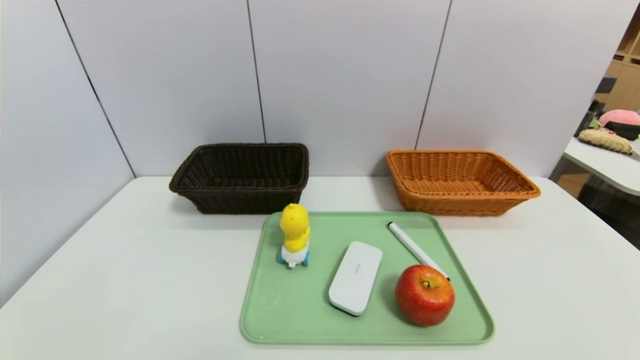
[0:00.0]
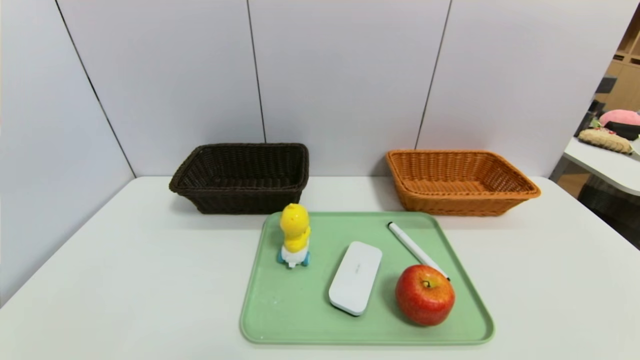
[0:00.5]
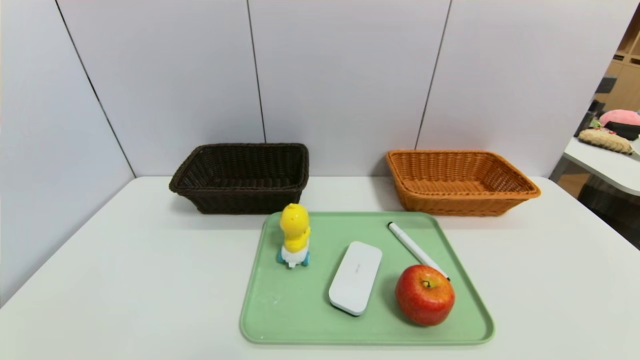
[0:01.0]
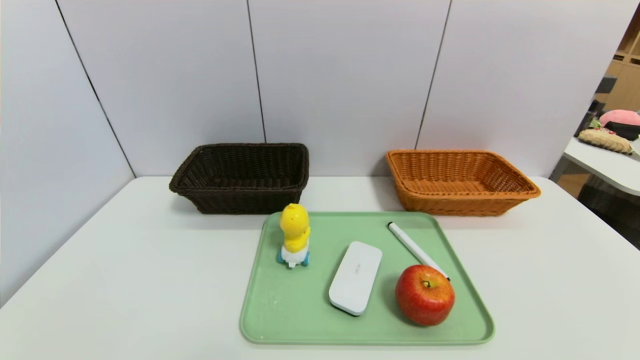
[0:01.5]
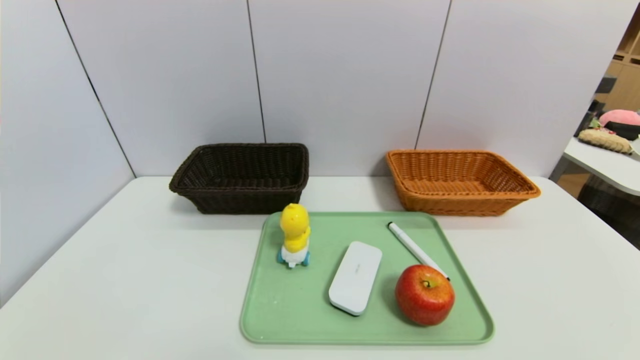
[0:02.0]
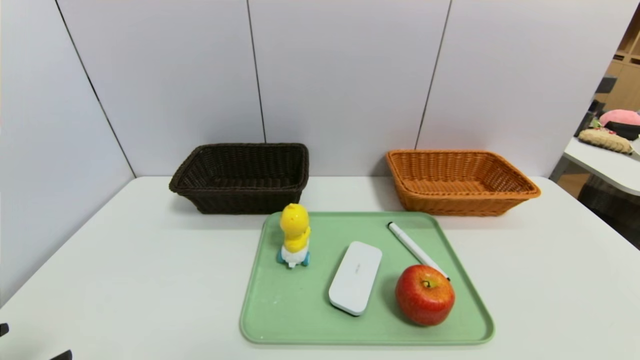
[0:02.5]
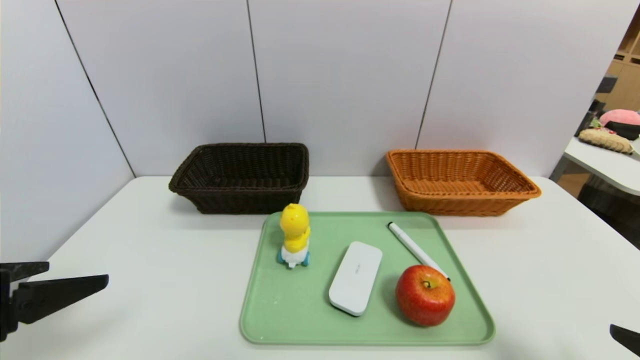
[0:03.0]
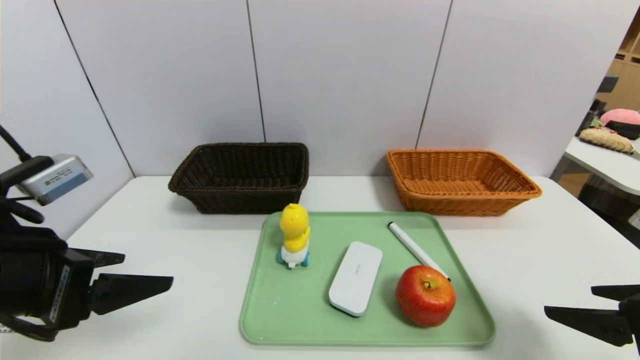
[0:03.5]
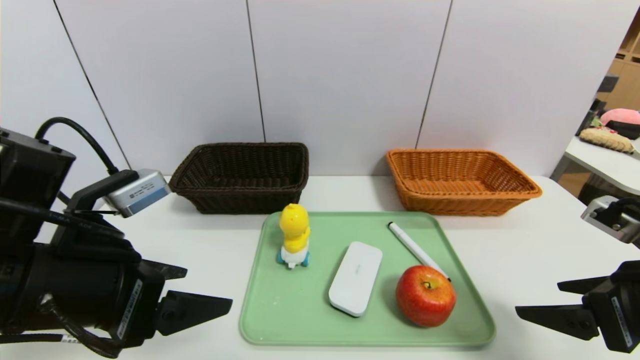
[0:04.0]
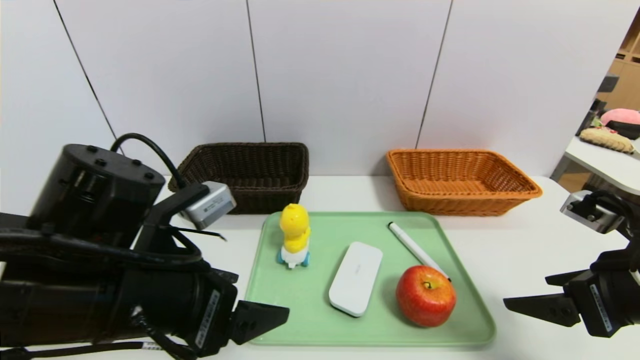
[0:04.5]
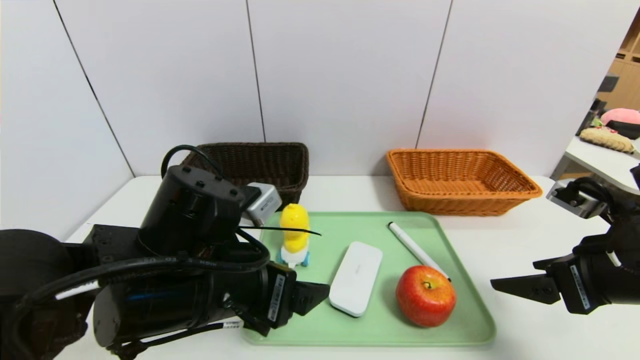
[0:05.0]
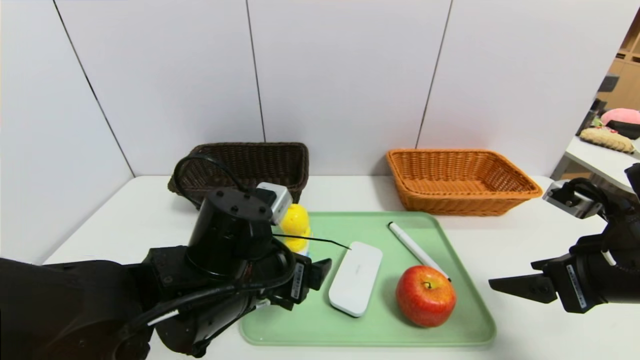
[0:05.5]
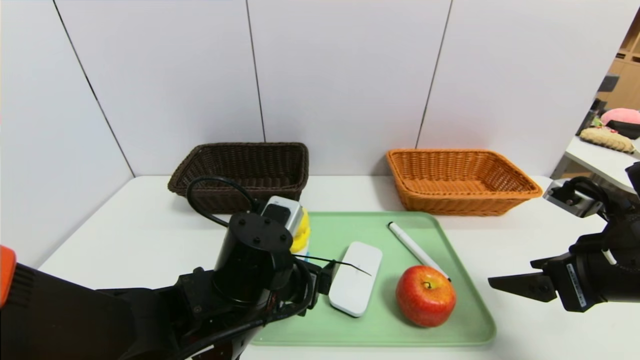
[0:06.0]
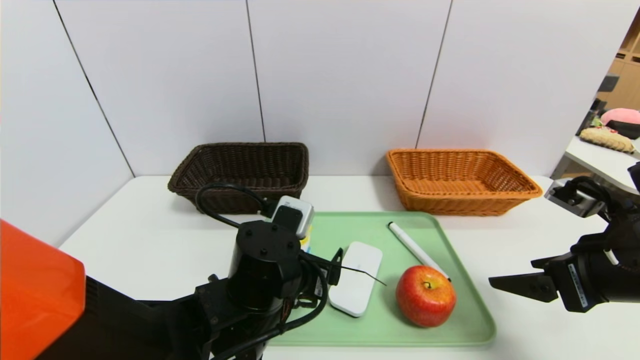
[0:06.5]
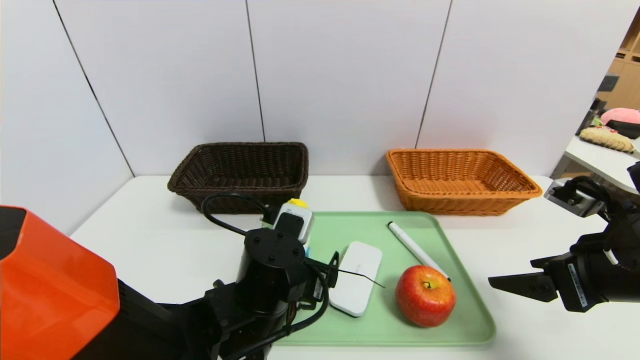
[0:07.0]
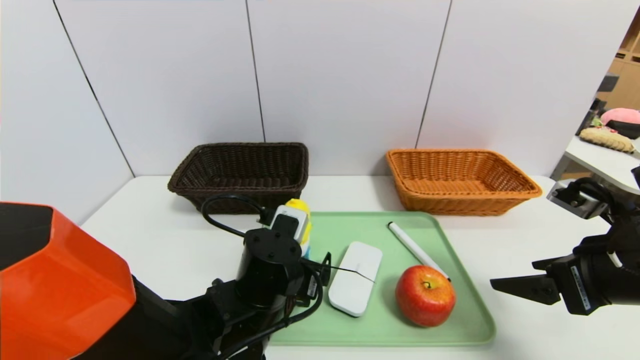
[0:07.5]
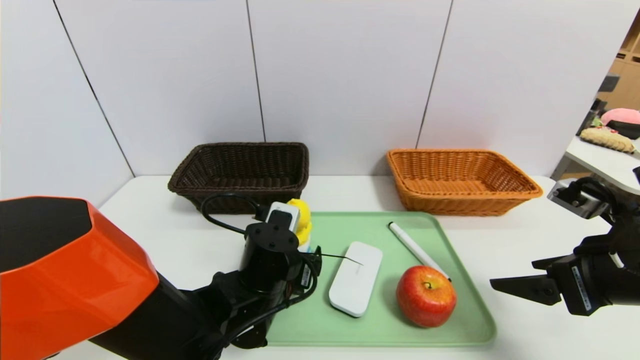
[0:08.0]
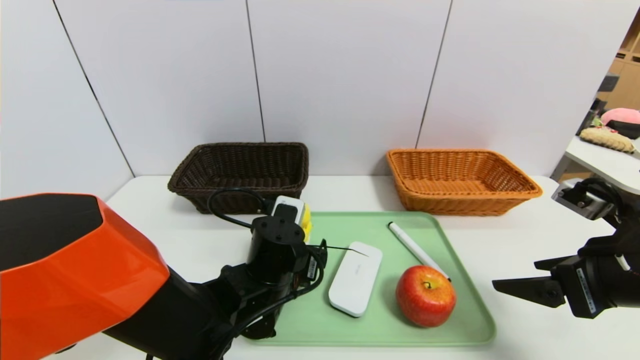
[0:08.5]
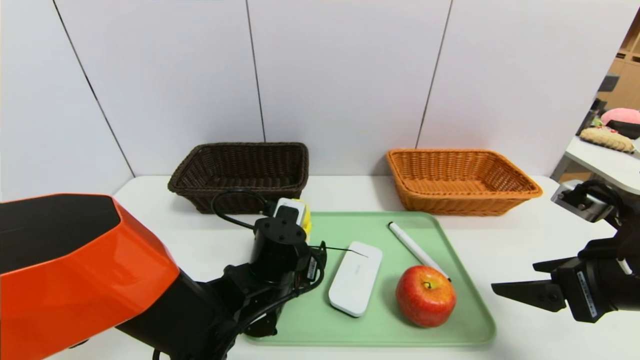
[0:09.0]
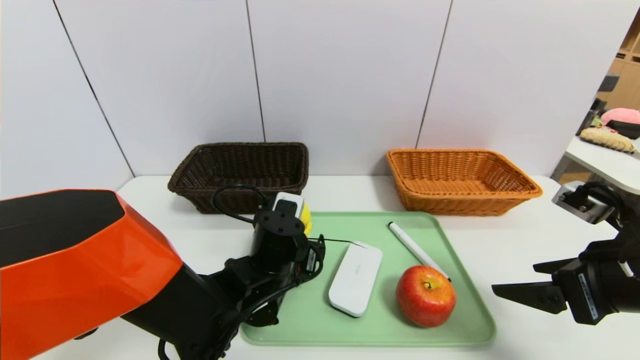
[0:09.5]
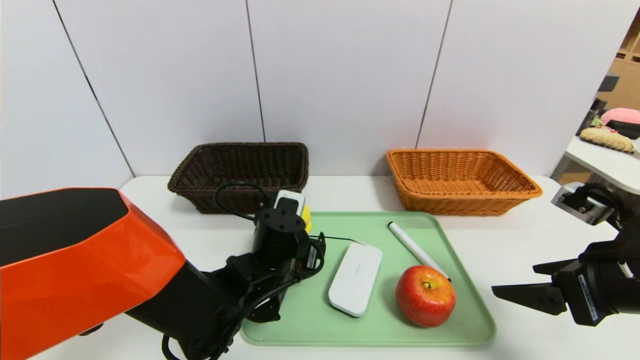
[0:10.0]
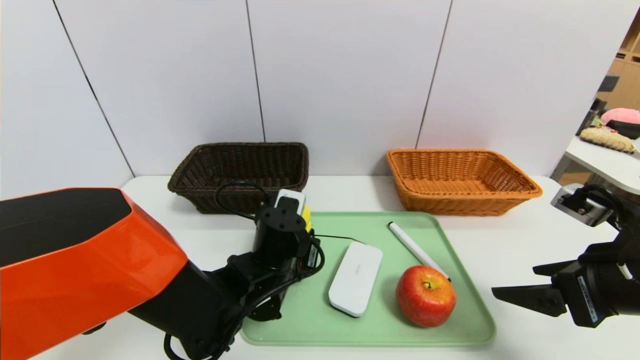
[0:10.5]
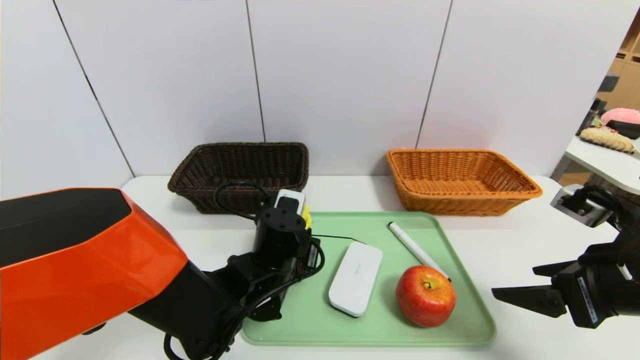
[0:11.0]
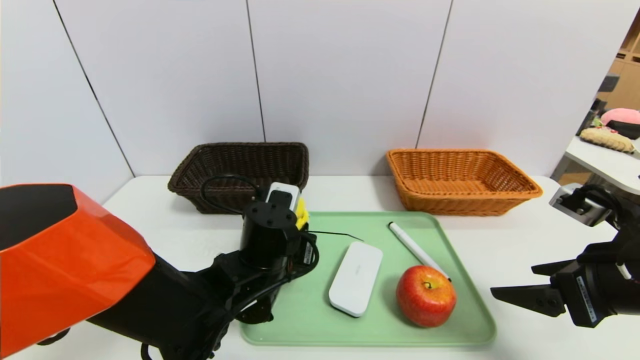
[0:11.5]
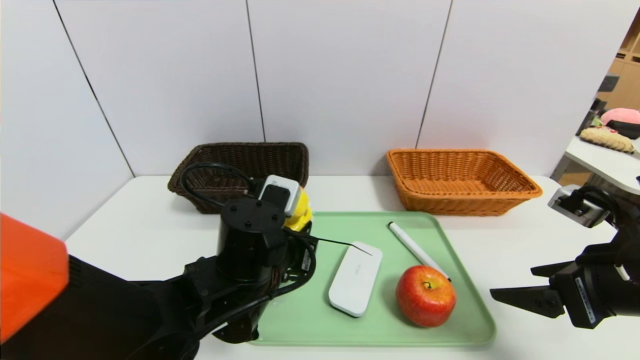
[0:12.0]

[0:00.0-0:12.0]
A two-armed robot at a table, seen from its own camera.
Task of the whole recording: place the food in the right basket with the right gripper, and place the non food items in the left basket with the left gripper.
0:02.0 to 0:04.0: The left gripper moves forward, upward and to the right, approximately 25 cm, while the right gripper travels forward and upward by about 20 cm.
0:04.0 to 0:06.0: The left gripper is displaced to the right and downward by some 15 cm.
0:06.0 to 0:08.0: The left gripper shifts by about 5 cm.
0:08.0 to 0:10.0: The grippers move only a little.
0:10.0 to 0:12.0: The left gripper moves upward, some 5 cm, and closes.

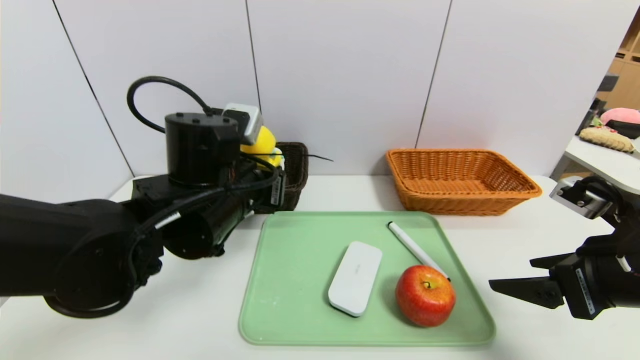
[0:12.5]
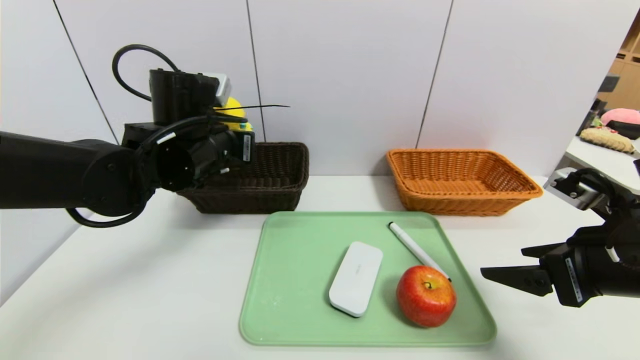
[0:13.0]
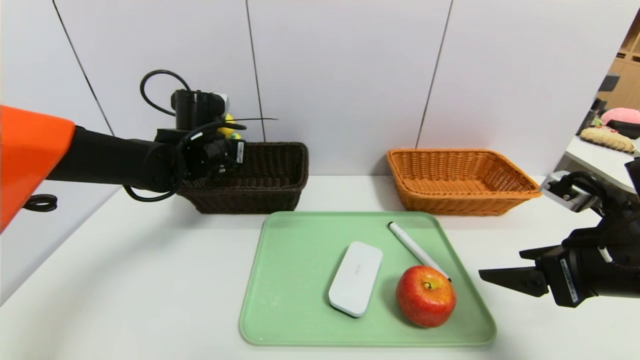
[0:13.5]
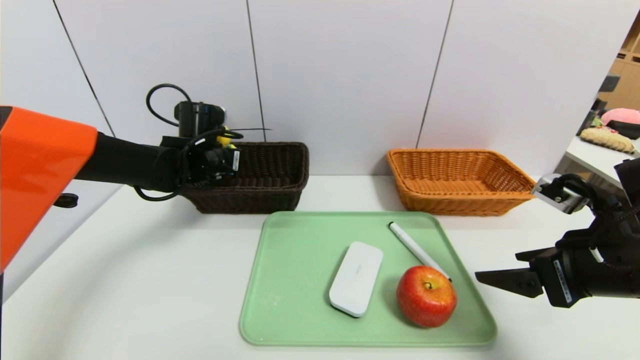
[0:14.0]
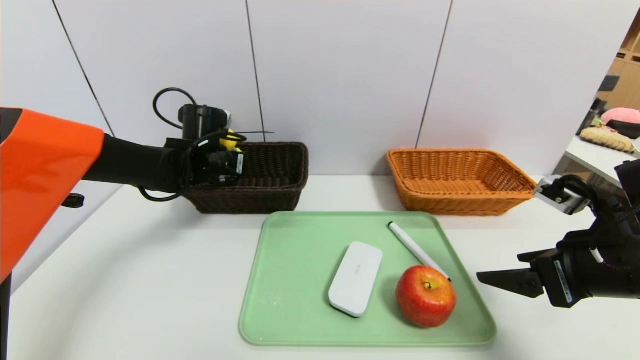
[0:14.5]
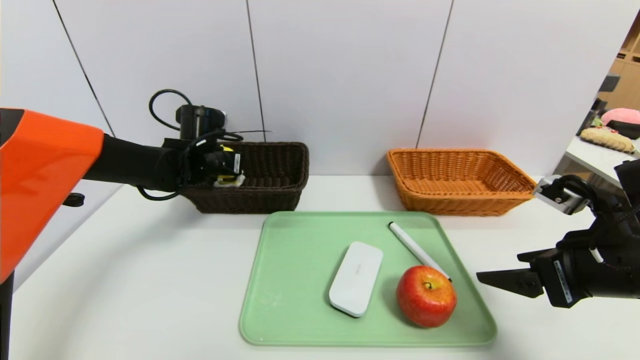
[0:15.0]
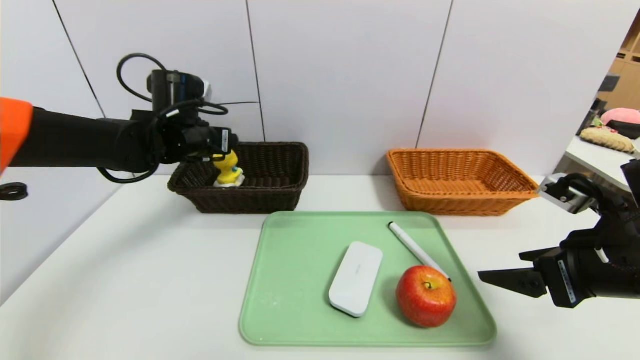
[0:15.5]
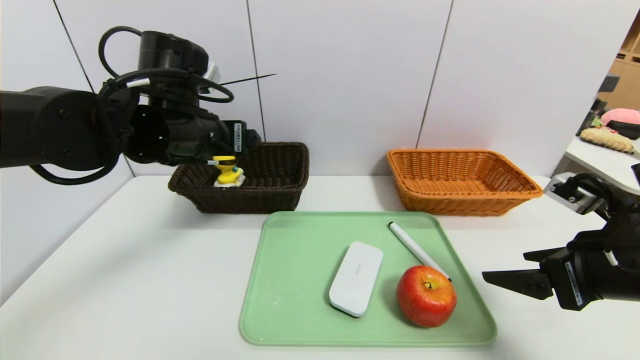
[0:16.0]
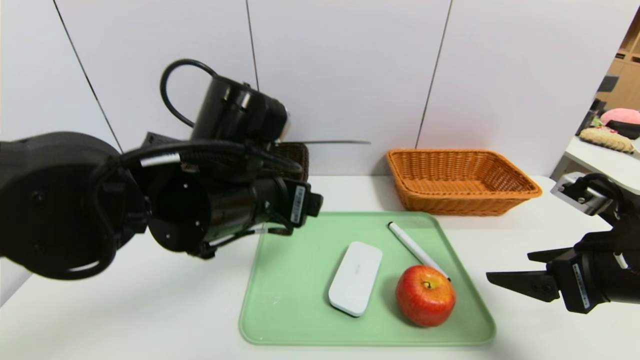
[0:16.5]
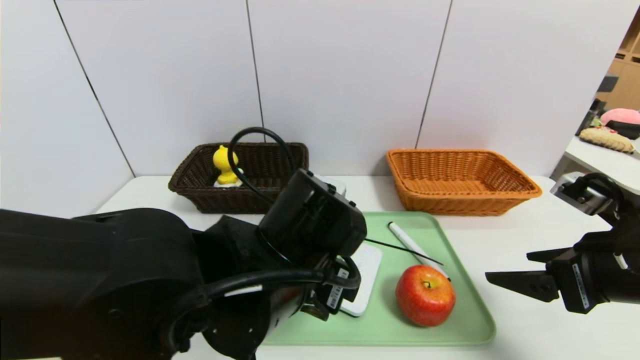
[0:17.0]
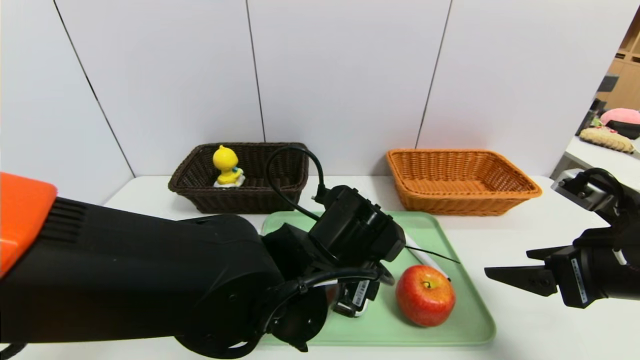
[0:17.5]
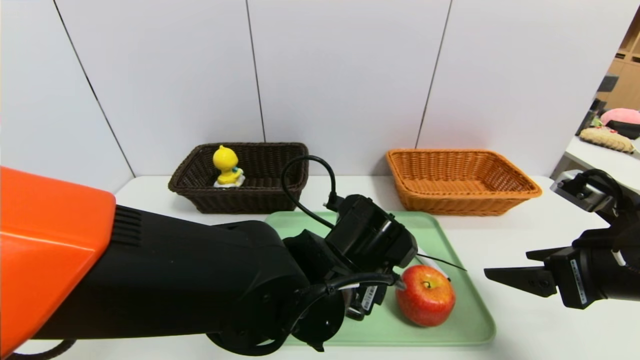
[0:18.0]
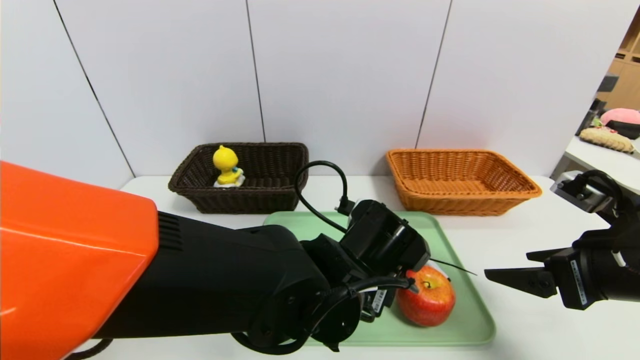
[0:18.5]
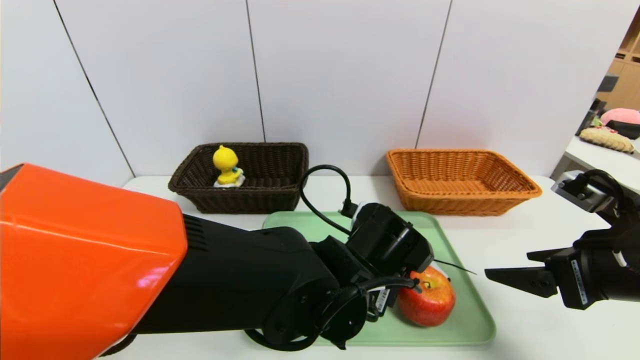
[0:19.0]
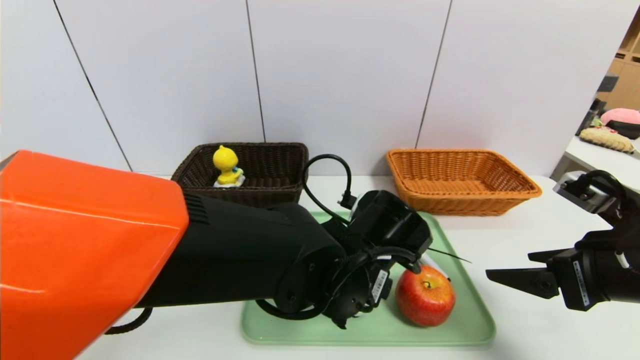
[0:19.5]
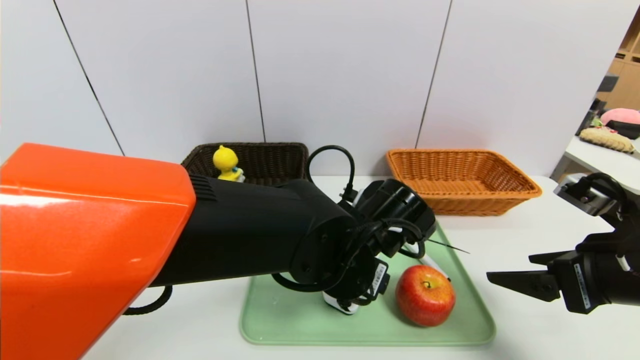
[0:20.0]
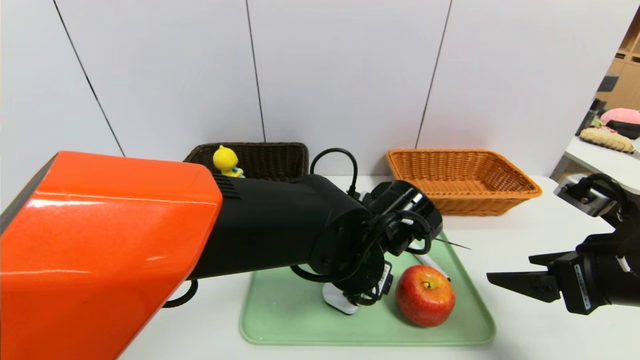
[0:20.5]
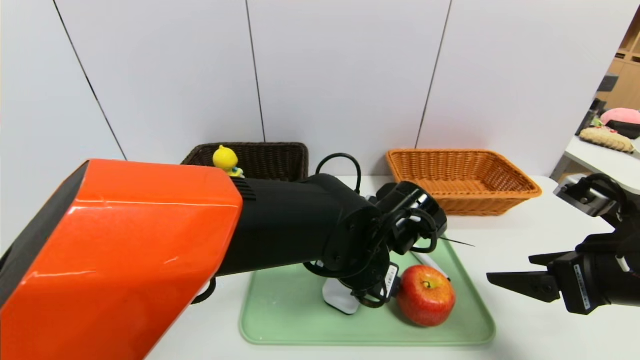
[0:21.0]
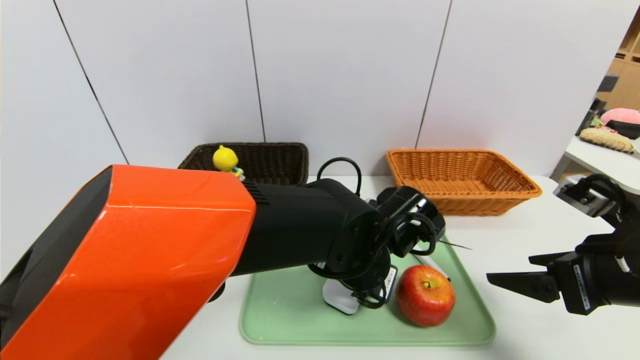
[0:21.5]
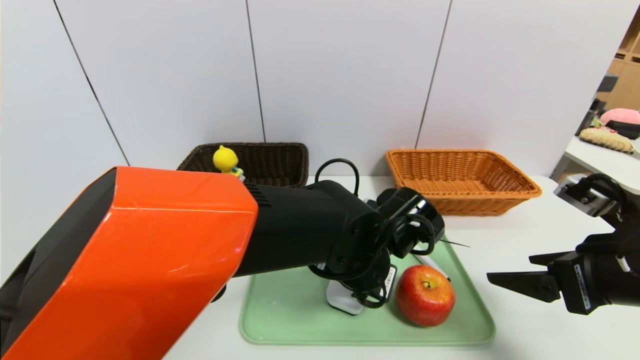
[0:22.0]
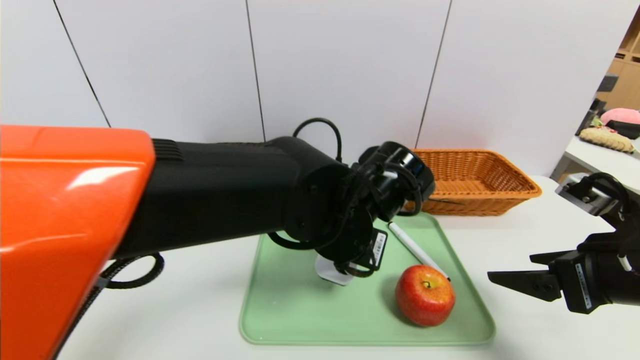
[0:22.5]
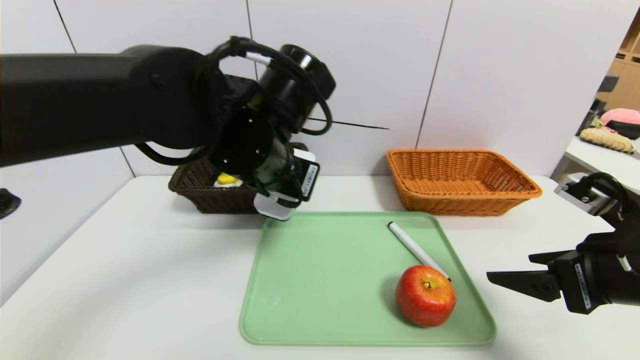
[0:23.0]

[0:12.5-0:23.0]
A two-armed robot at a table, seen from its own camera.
Task of the whole recording: place the food in the right basket with the right gripper, and place the non food items in the left basket with the left gripper.
Step, 0:12.5 to 0:15.5: Grasp the duck toys and put it in the left basket.
0:12.5 to 0:14.5: The left gripper shifts approximately 20 cm forward and to the left.
0:14.5 to 0:16.5: The left gripper heads backward and to the right, covering approximately 25 cm, and opens up.
0:16.5 to 0:19.0: The left gripper is displaced to the right and downward by roughly 15 cm.
0:21.0 to 0:23.0: The left gripper goes roughly 15 cm upward and to the left, and closes up.
